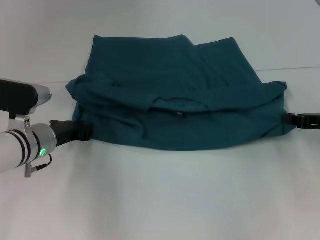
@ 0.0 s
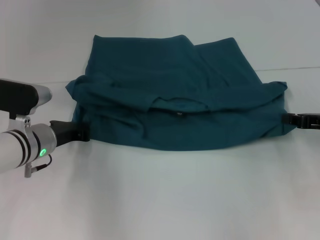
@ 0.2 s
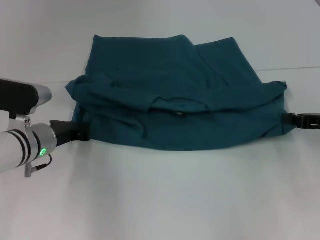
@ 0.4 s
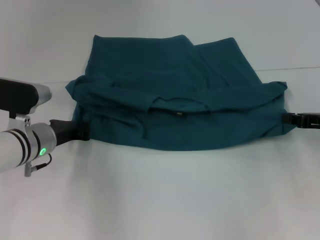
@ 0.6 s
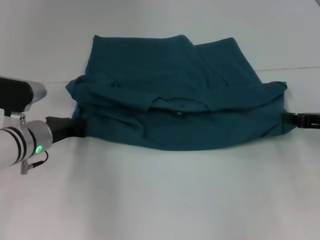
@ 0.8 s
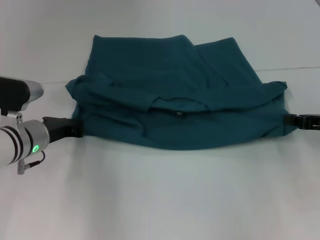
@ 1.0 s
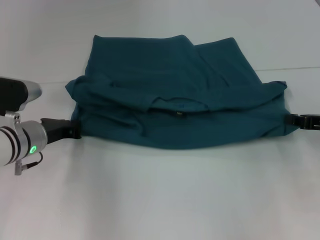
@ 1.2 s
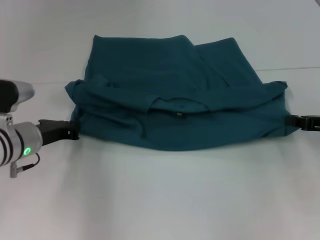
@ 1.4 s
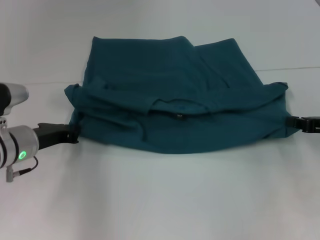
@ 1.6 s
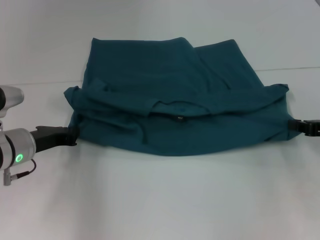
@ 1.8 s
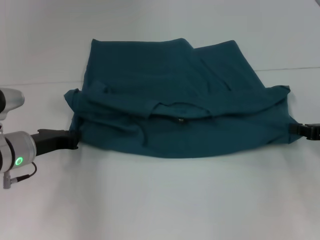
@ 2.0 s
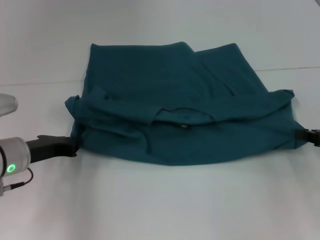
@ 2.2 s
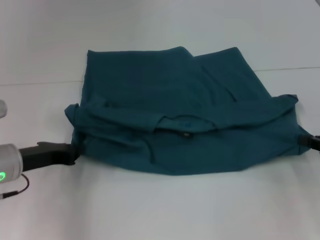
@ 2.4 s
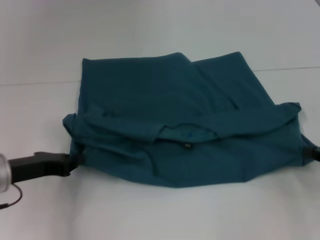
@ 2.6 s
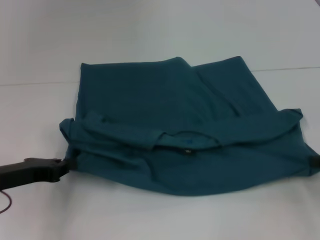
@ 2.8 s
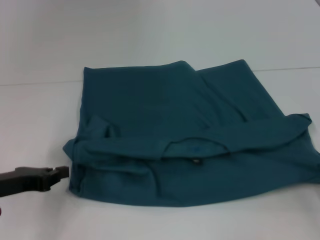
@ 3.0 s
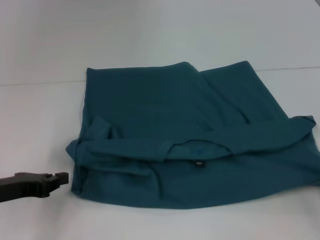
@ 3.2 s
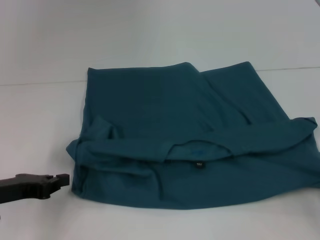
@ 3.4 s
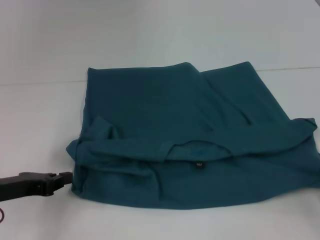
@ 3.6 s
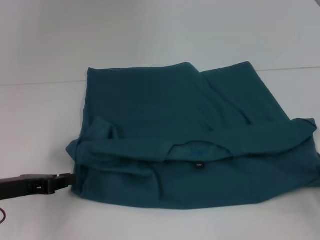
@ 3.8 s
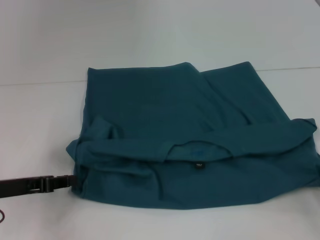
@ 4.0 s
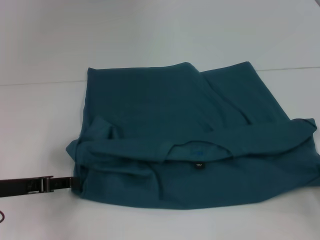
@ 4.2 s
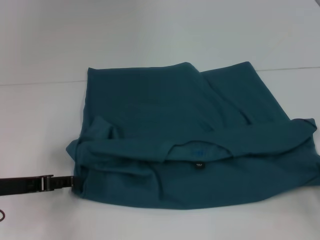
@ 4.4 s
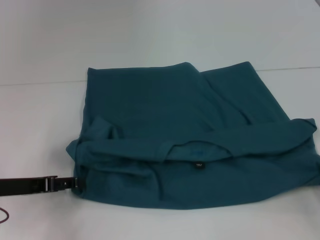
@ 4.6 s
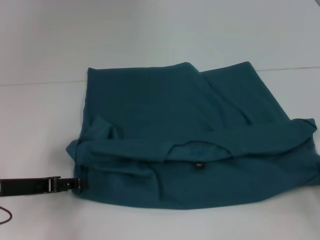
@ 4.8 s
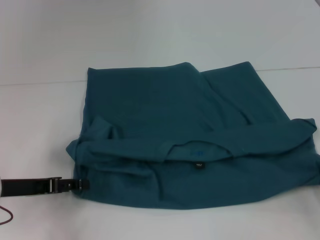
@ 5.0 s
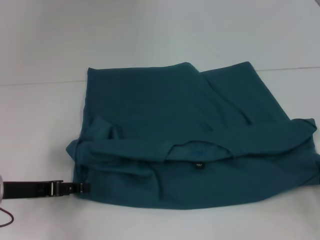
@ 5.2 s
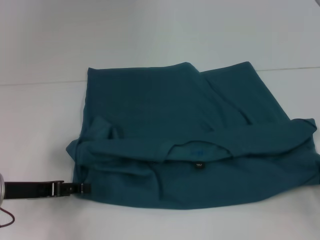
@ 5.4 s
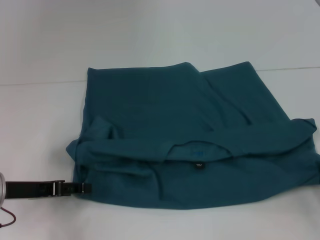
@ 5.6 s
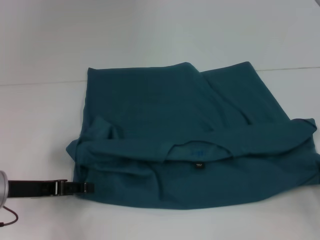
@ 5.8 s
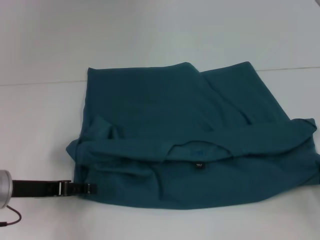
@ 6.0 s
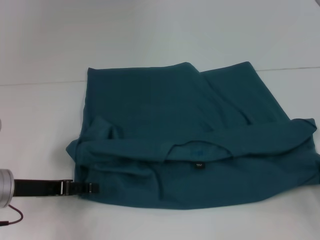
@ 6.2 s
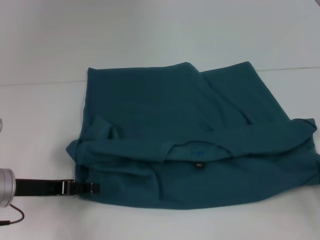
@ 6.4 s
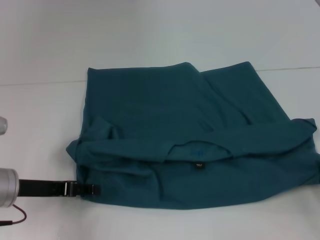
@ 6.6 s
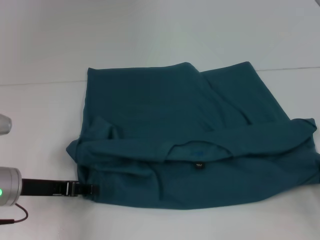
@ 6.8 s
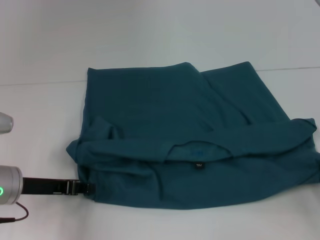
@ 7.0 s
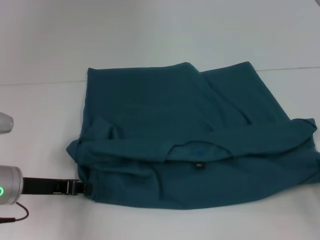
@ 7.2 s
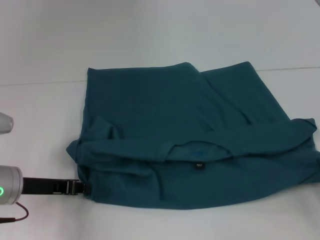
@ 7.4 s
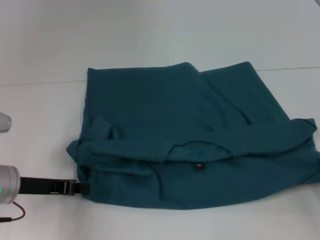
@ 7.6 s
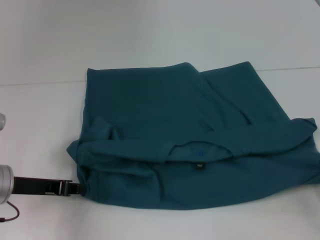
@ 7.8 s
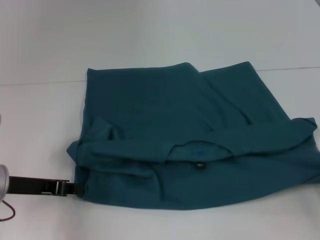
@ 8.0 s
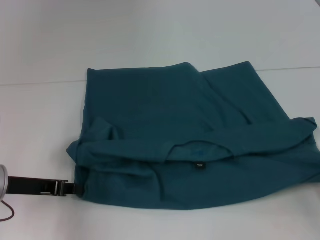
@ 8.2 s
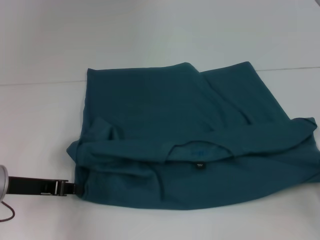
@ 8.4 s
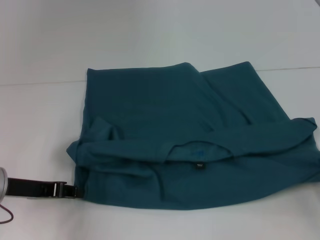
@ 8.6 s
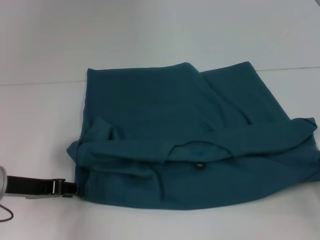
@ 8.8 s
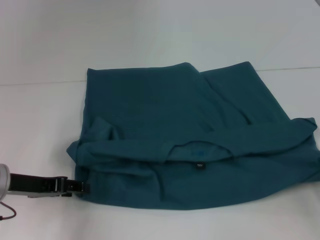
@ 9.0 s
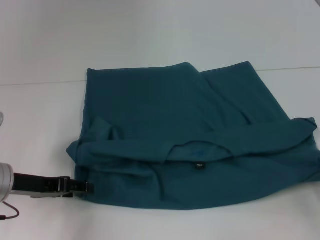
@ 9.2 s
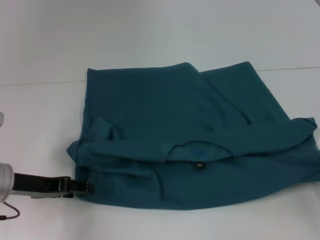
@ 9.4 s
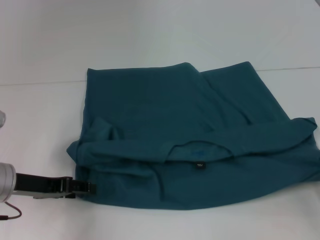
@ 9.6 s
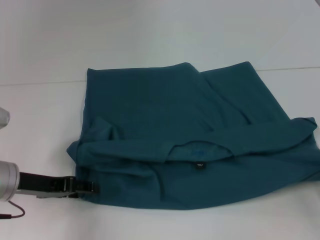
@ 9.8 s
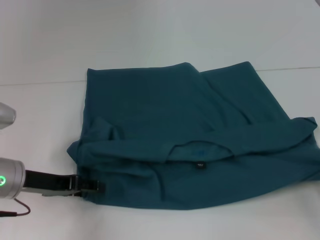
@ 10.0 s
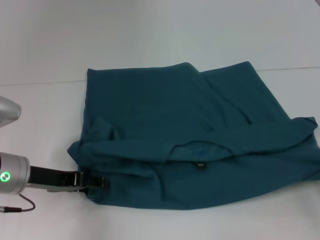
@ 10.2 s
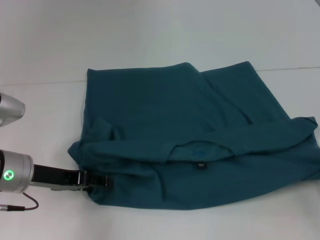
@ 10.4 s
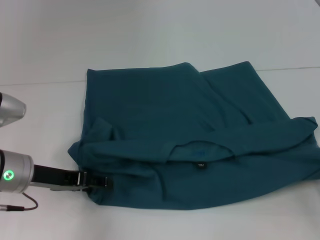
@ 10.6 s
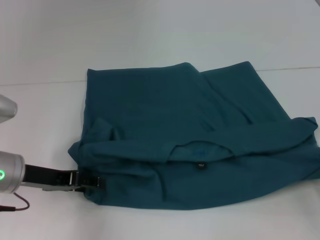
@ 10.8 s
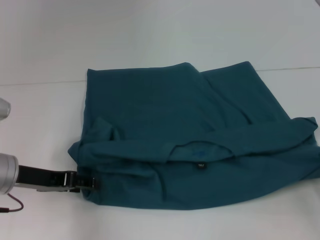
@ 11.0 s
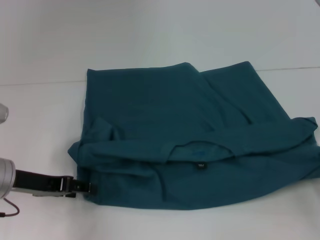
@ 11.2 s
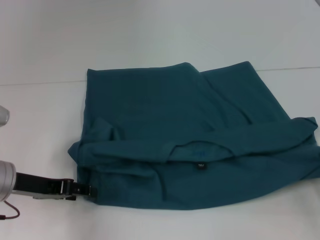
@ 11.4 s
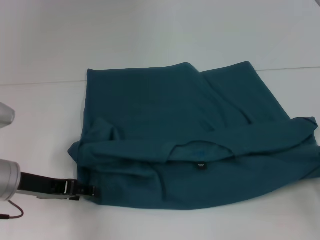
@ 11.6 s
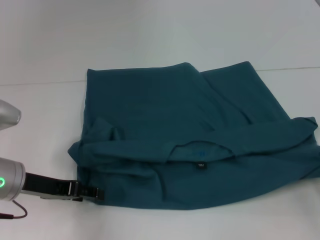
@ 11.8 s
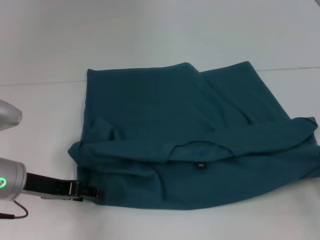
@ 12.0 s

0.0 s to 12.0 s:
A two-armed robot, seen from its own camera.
0.0 to 1.6 s: The left gripper closes.
1.6 to 3.0 s: The left gripper goes approximately 10 cm backward and to the left. The right gripper heads backward, covering approximately 10 cm.
3.0 to 4.4 s: The left gripper opens.
4.4 to 6.0 s: There are only small adjustments of the grippers.
6.0 to 7.6 s: The left gripper closes up.
7.6 to 9.0 s: The left gripper opens.
9.0 to 12.0 s: The grippers make only small movements.

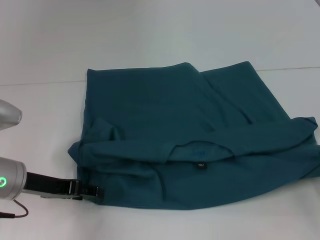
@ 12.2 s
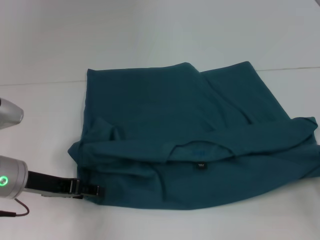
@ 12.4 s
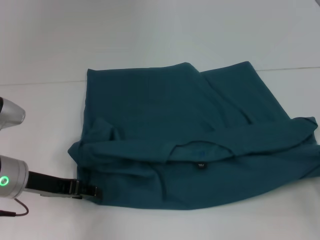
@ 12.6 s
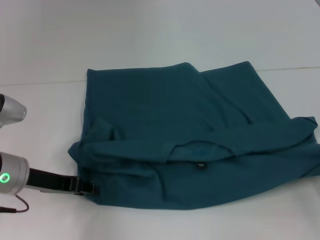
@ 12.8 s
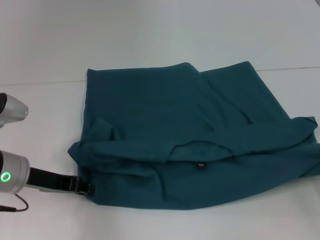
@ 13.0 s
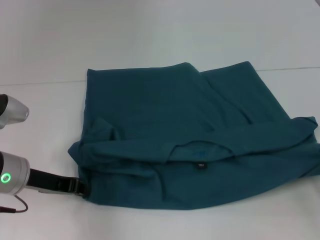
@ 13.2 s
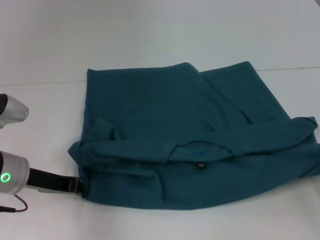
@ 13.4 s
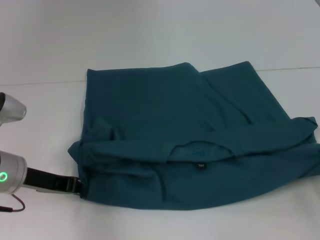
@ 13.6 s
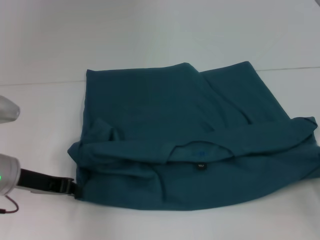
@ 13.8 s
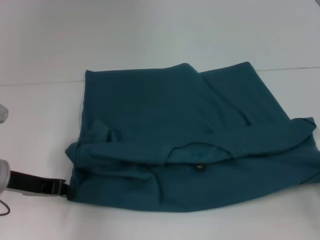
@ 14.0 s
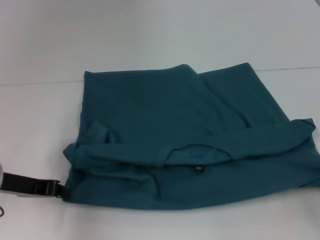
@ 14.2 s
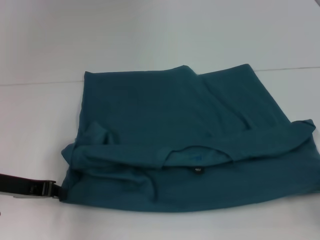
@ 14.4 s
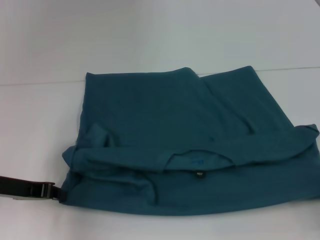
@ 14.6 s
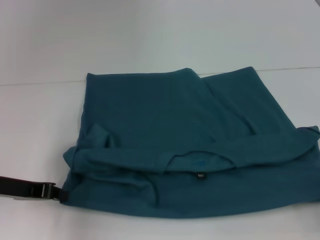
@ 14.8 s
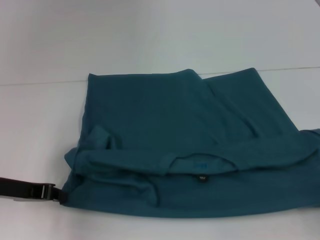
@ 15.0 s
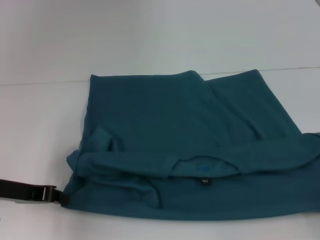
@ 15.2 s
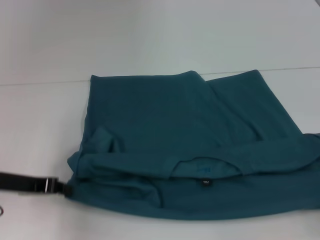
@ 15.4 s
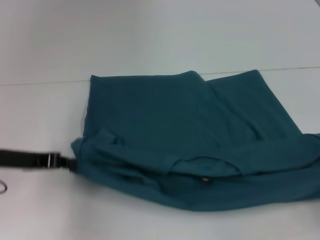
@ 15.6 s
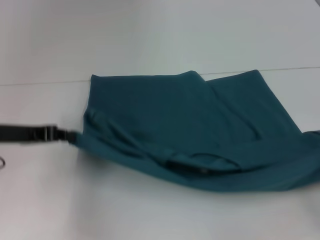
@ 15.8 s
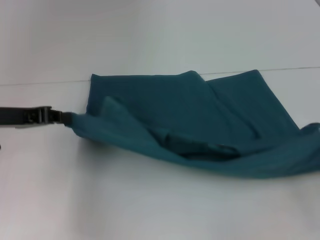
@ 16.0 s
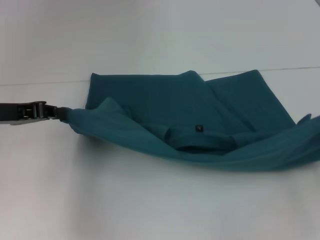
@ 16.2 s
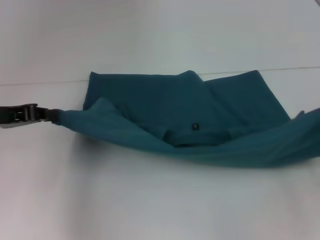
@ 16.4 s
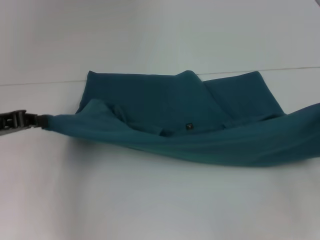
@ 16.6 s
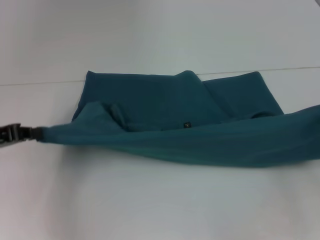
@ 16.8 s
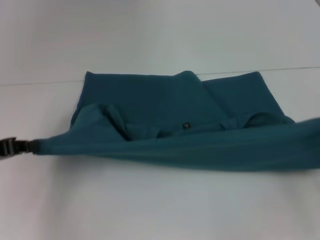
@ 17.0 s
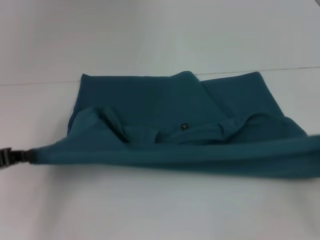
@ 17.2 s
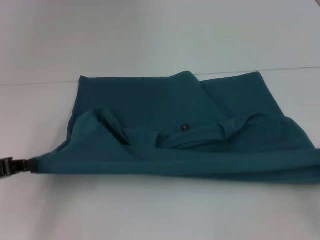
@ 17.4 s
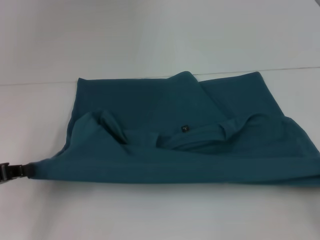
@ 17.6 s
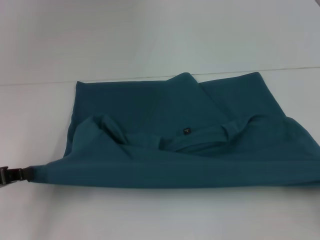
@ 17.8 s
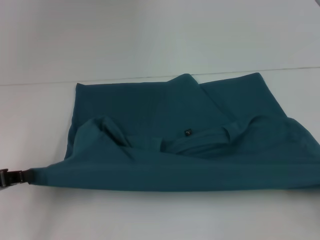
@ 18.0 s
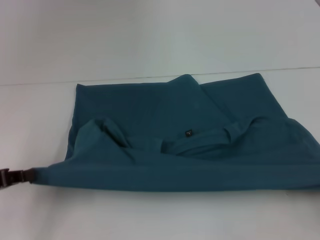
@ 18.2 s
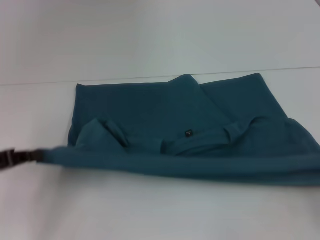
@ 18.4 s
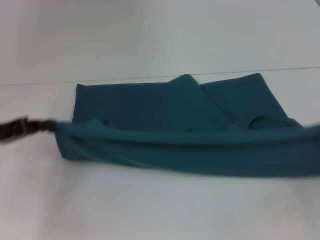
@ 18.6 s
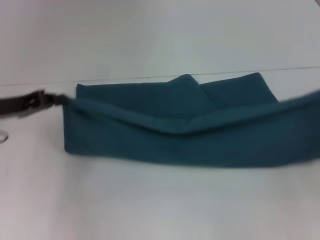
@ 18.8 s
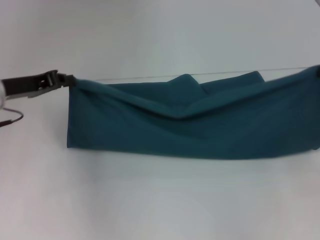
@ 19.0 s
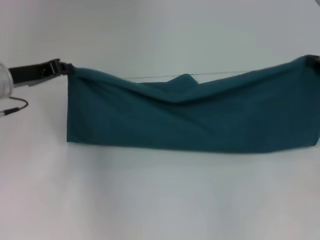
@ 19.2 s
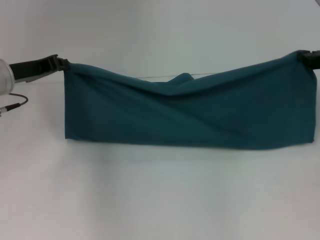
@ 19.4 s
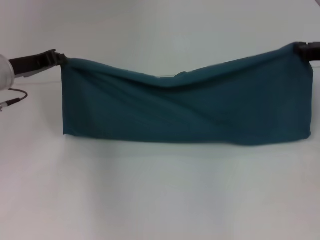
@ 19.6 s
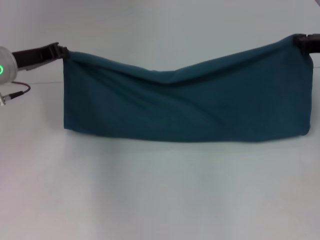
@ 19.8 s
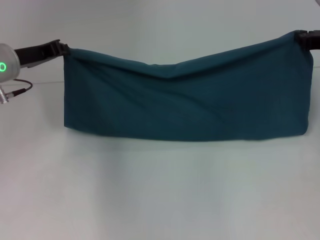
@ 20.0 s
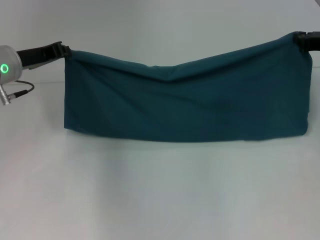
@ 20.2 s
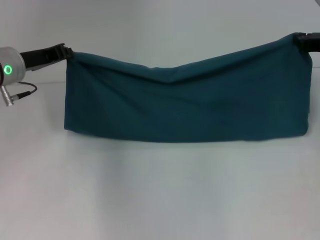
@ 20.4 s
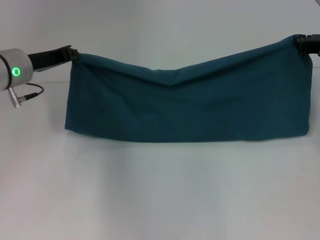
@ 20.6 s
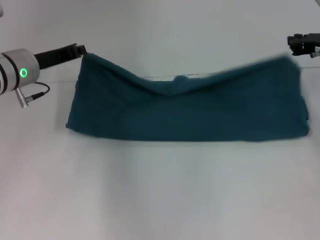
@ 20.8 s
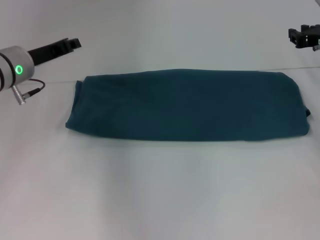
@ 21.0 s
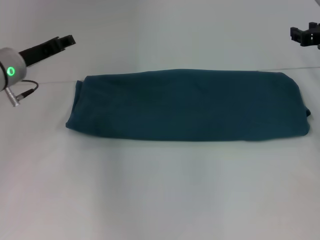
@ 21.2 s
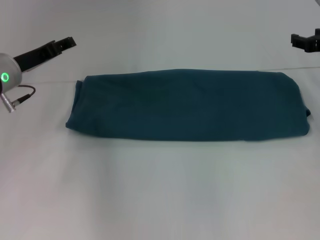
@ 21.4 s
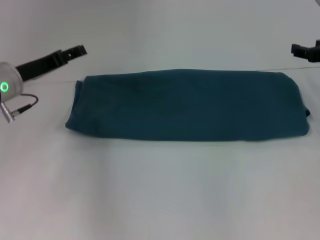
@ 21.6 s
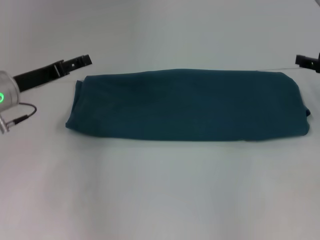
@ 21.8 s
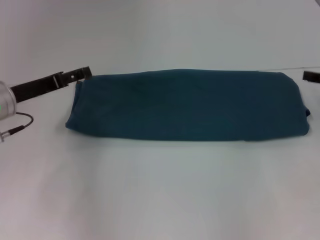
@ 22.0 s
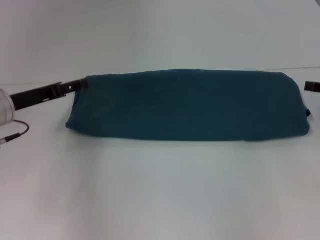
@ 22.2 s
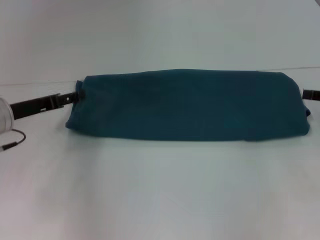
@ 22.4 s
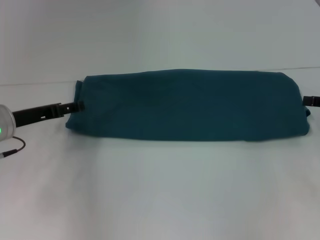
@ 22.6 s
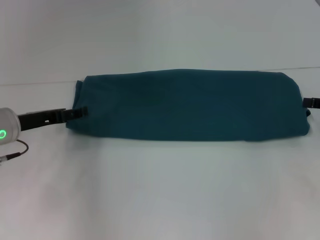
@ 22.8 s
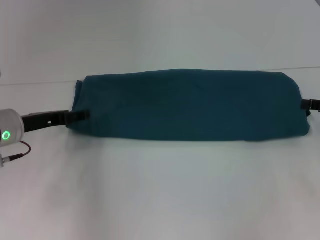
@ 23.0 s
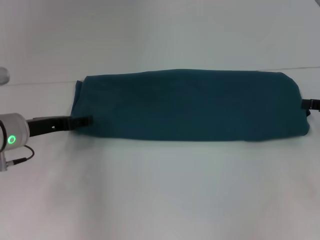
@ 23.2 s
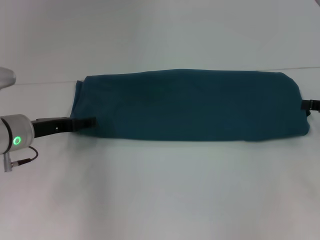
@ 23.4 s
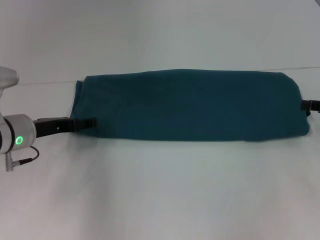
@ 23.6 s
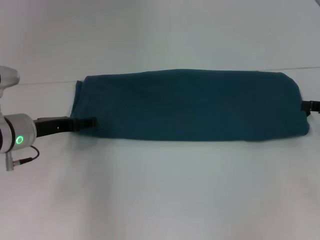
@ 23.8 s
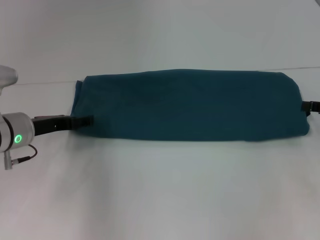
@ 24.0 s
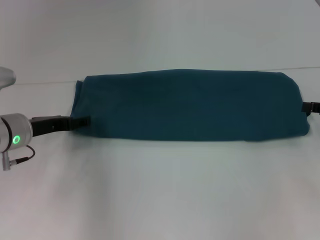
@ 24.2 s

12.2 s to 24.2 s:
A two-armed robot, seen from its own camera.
Step, 14.2 to 20.8 s: Fold the clothes to the right.
12.2 to 13.8 s: The left gripper closes up.
13.8 to 15.2 s: The right gripper goes about 5 cm backward.
15.2 to 16.6 s: The right gripper travels forward and upward by roughly 15 cm. The left gripper shifts roughly 5 cm upward.
16.6 to 18.2 s: The right gripper heads backward and downward, covering roughly 10 cm, while the left gripper shifts about 5 cm backward.
18.2 to 19.8 s: The right gripper shifts roughly 25 cm forward; the left gripper moves forward and to the right, approximately 20 cm.
19.8 to 21.2 s: The grippers stay close to where they were, moving slightly.
21.2 to 22.6 s: The right gripper is displaced backward and to the right by approximately 10 cm, and opens. Meanwhile the left gripper heads backward, covering about 5 cm, and opens its fingers.
22.6 to 24.2 s: There are only small adjustments of the grippers.
